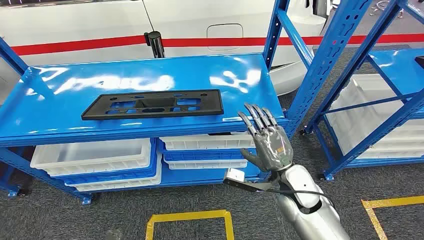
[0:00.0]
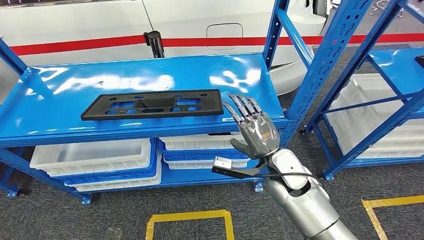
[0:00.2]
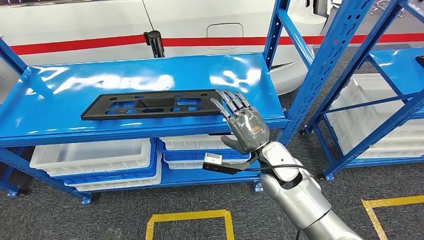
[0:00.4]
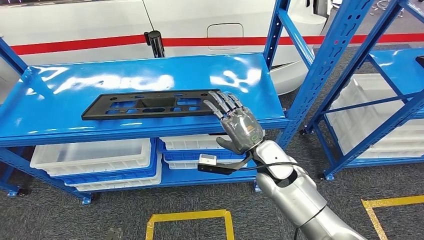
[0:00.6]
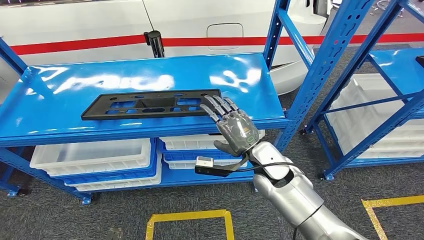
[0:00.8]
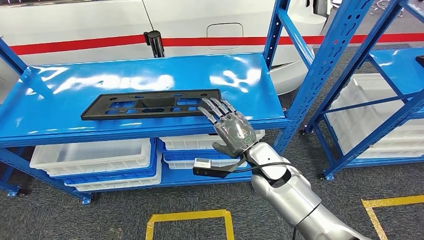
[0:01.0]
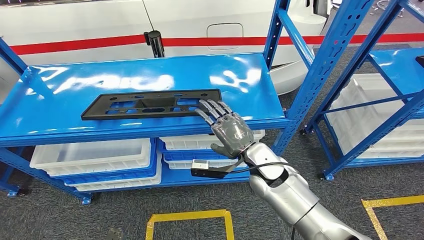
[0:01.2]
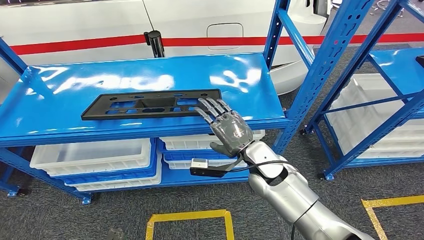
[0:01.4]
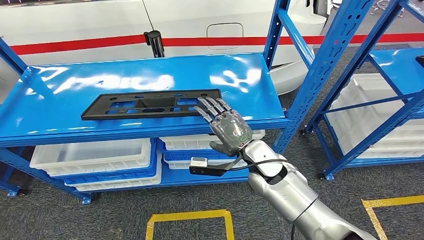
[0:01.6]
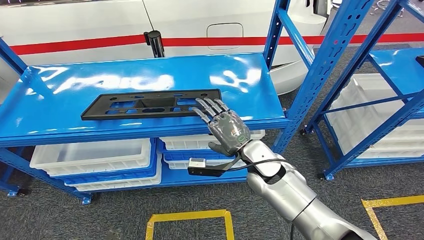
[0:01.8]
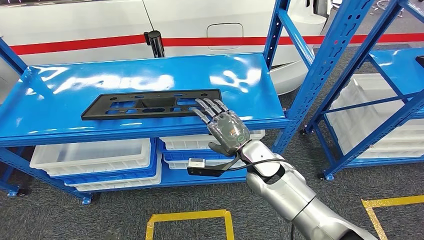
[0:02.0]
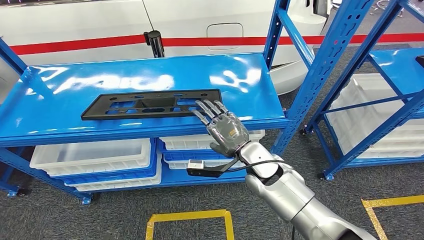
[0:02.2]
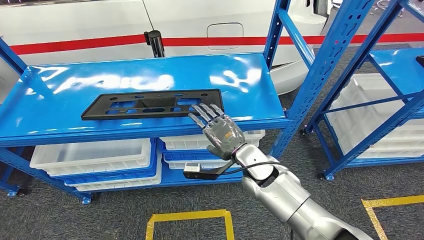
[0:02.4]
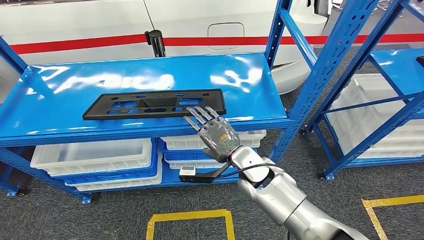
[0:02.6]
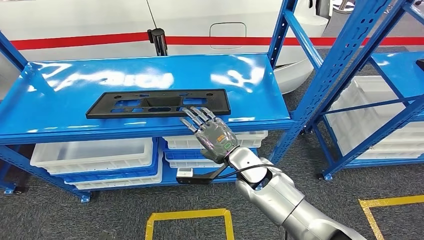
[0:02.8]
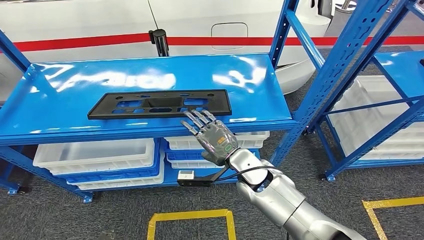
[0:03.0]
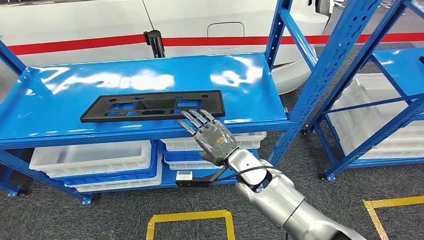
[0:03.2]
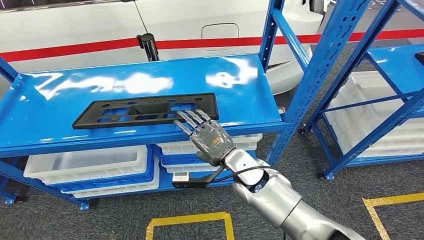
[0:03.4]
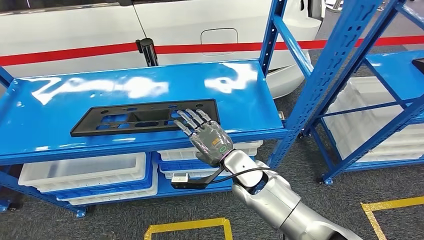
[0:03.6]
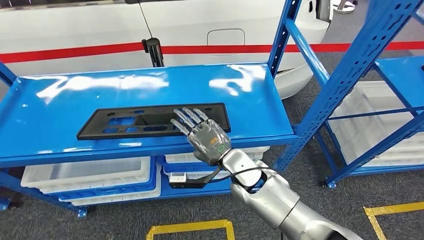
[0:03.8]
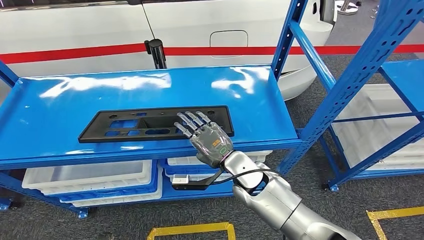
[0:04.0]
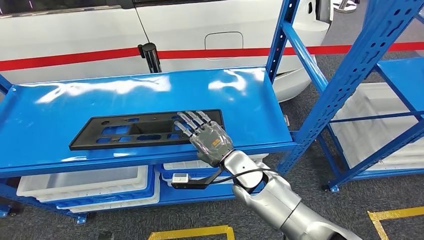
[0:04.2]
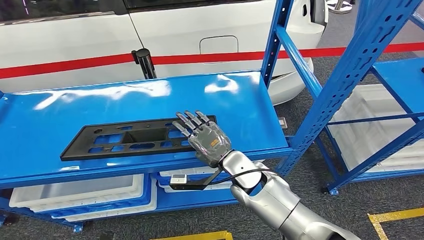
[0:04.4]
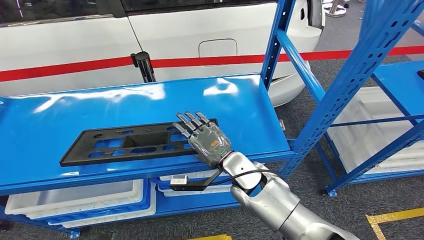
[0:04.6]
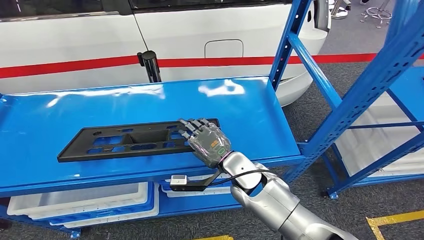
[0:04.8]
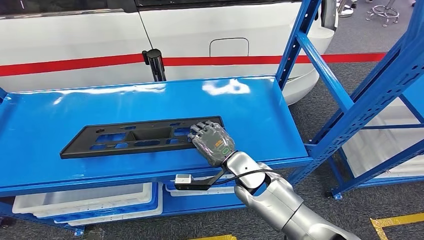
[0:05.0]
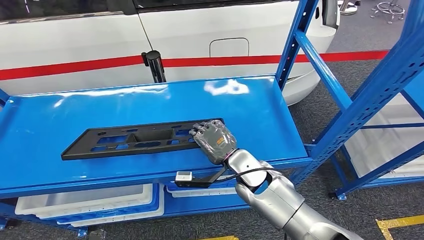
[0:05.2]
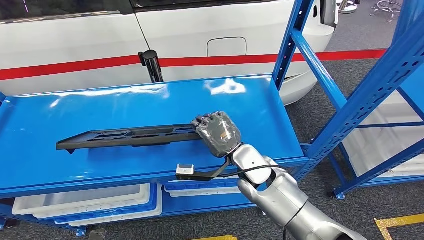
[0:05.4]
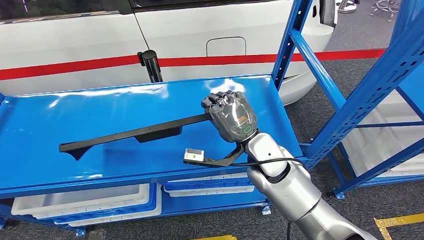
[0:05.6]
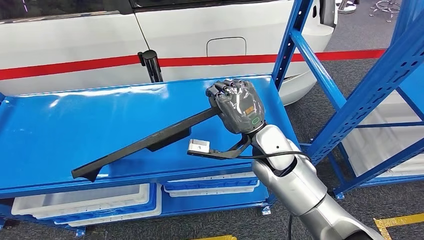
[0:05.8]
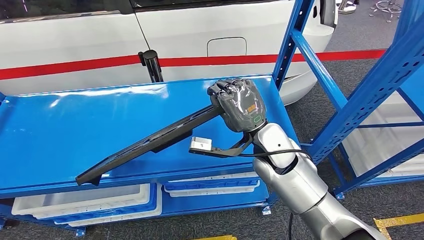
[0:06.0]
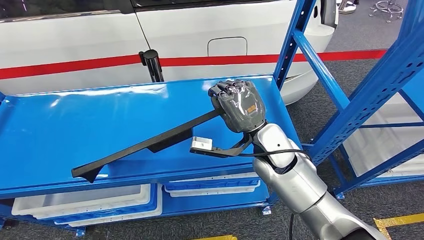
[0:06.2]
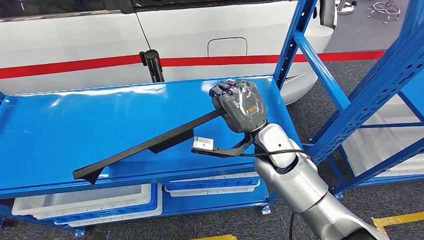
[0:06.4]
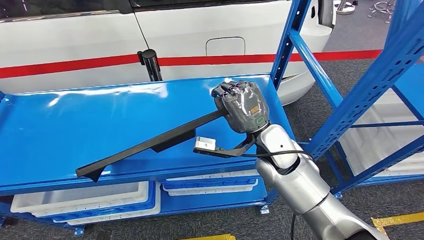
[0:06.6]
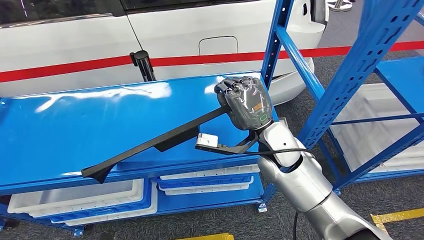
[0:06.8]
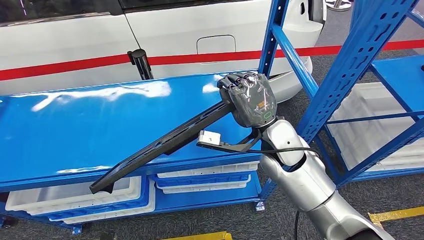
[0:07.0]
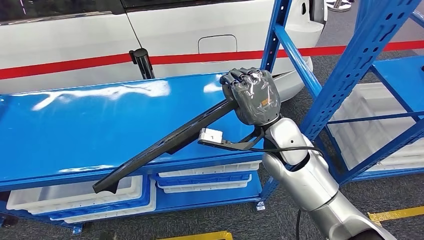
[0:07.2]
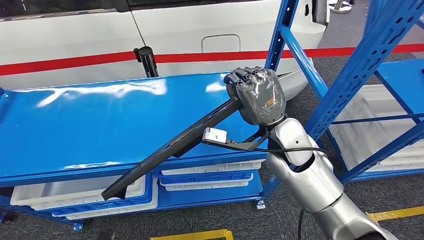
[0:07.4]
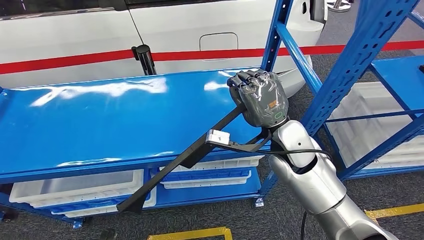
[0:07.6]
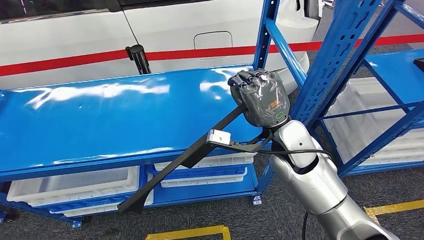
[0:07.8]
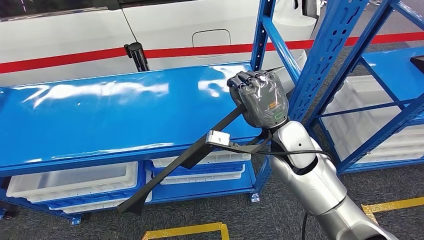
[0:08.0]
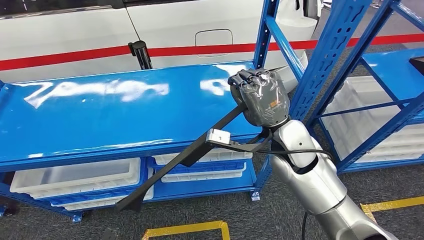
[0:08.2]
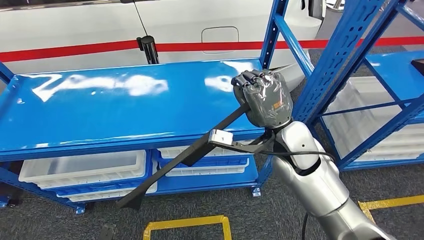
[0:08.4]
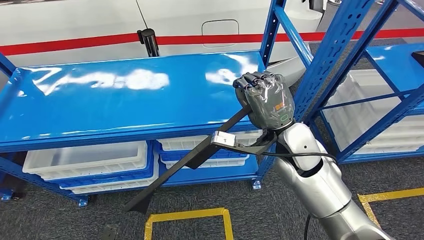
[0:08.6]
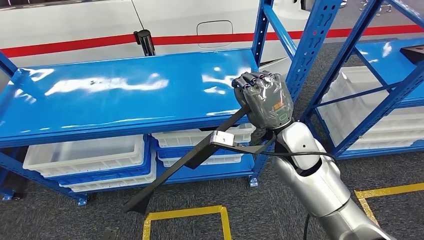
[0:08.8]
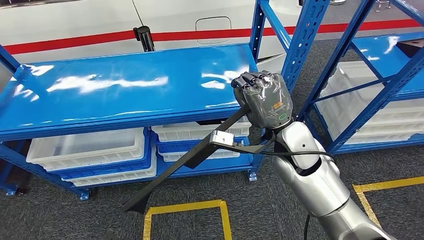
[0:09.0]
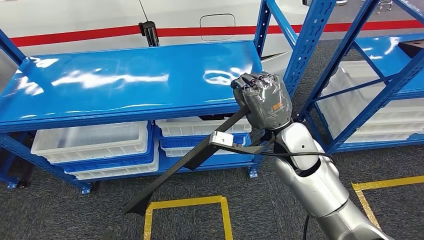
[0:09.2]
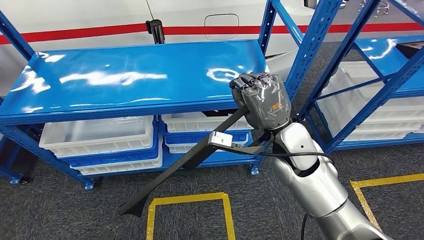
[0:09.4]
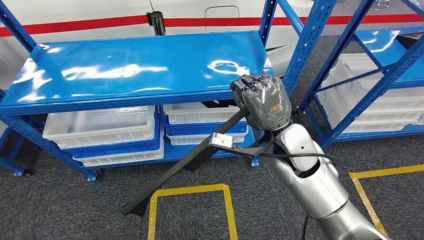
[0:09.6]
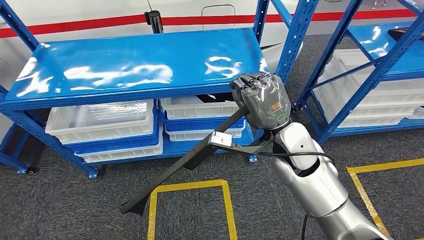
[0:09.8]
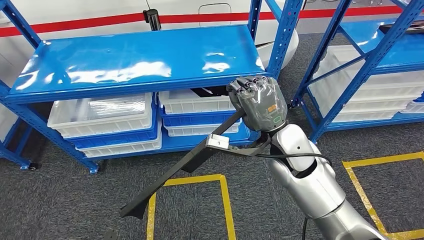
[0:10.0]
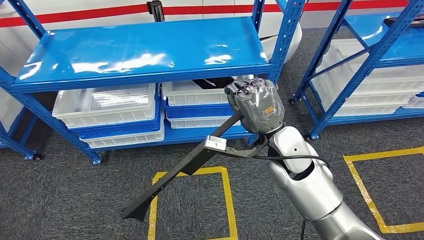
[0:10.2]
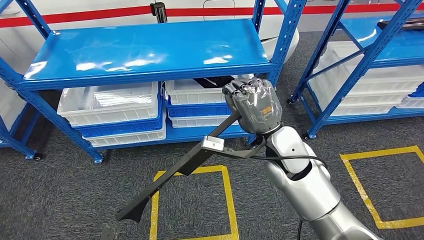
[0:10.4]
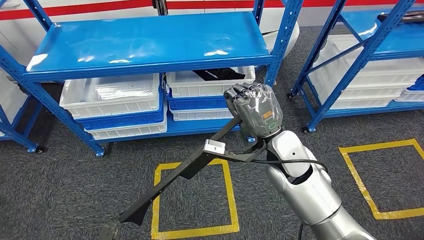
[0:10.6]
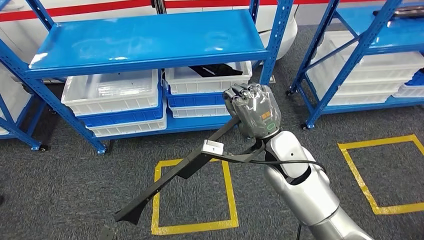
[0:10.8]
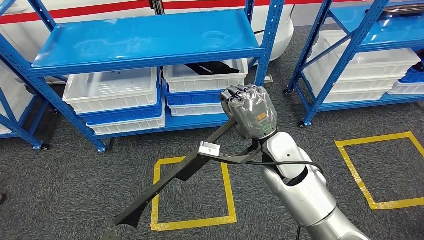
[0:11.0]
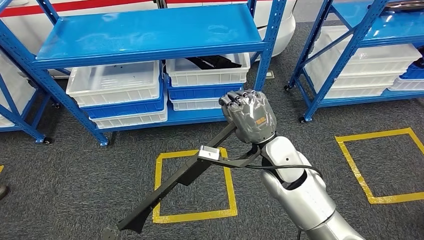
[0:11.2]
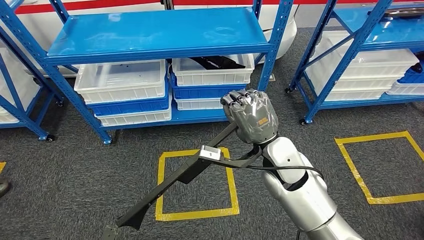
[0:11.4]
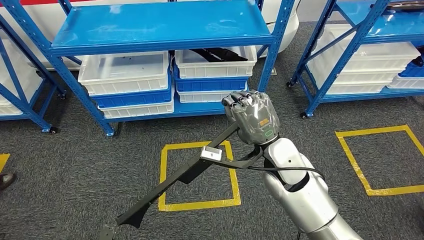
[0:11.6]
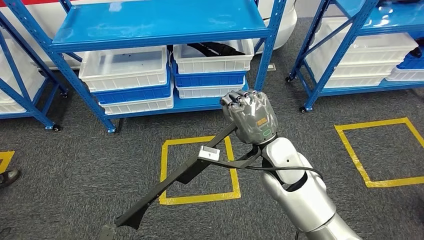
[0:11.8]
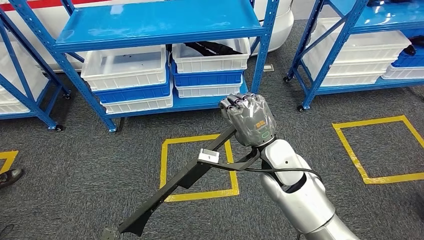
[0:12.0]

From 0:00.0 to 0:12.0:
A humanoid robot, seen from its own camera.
Step, from 0:00.0 to 0:06.6: Pick up the large material from the shelf.

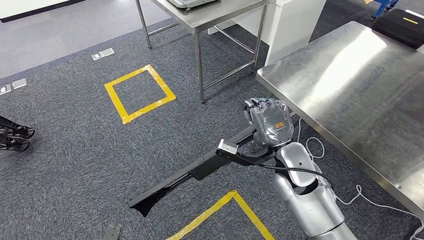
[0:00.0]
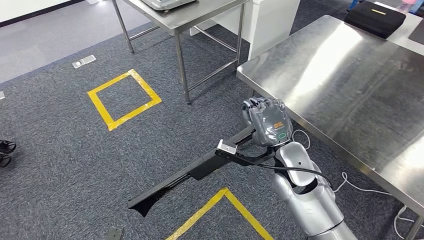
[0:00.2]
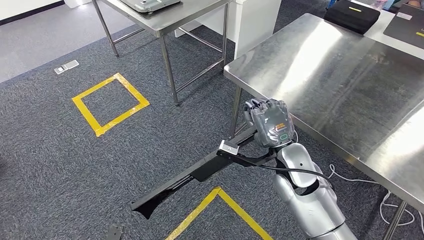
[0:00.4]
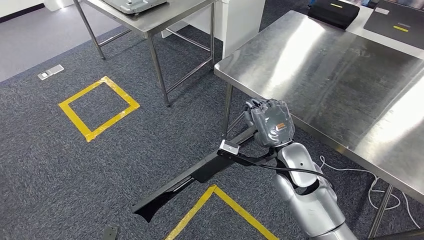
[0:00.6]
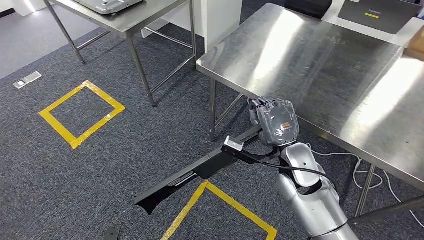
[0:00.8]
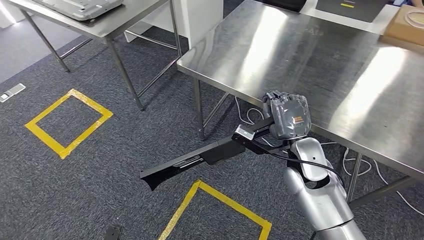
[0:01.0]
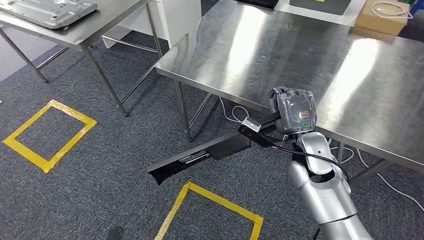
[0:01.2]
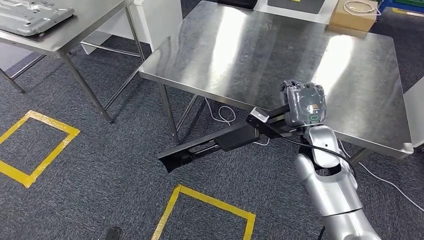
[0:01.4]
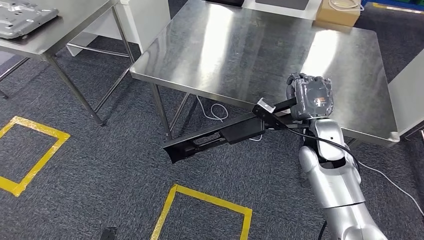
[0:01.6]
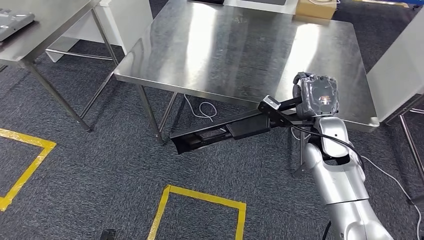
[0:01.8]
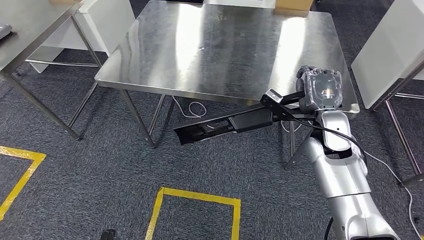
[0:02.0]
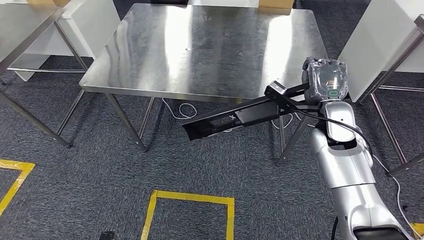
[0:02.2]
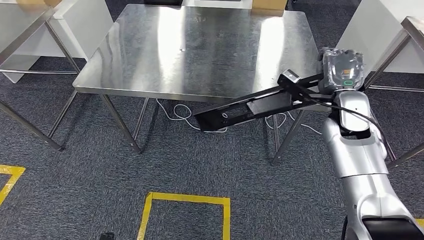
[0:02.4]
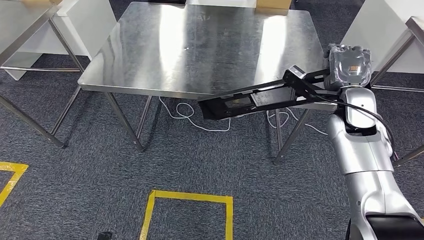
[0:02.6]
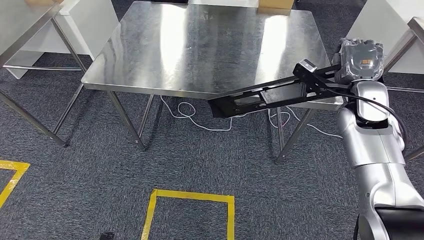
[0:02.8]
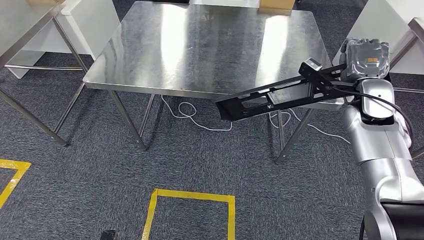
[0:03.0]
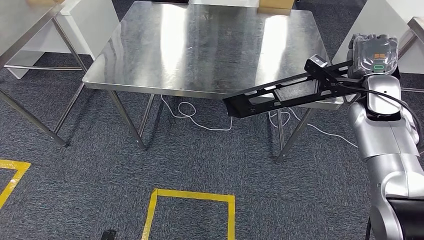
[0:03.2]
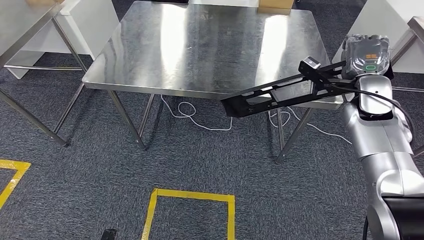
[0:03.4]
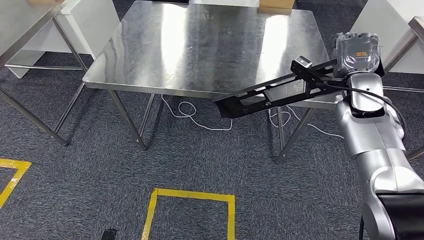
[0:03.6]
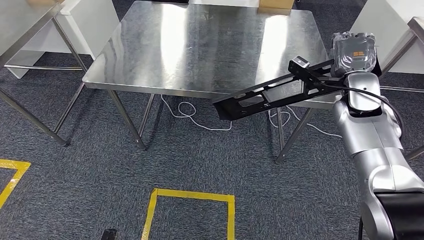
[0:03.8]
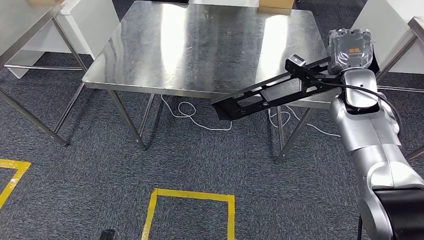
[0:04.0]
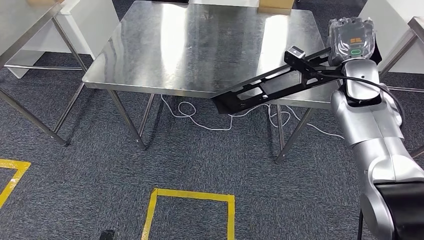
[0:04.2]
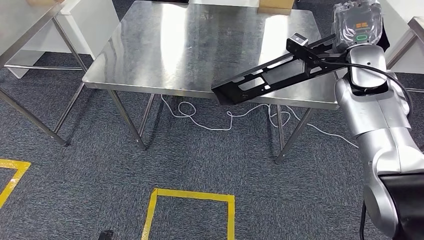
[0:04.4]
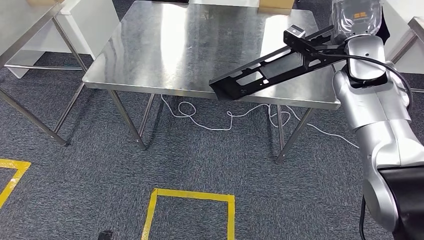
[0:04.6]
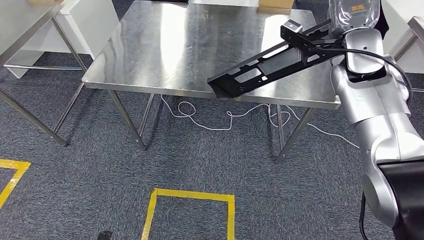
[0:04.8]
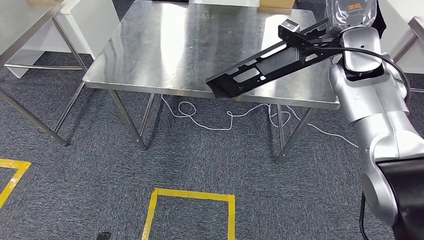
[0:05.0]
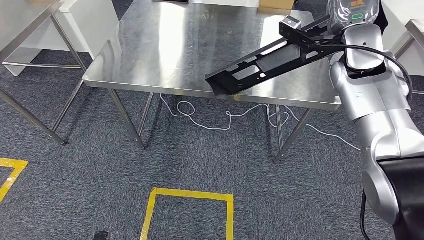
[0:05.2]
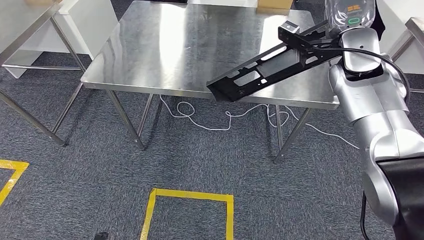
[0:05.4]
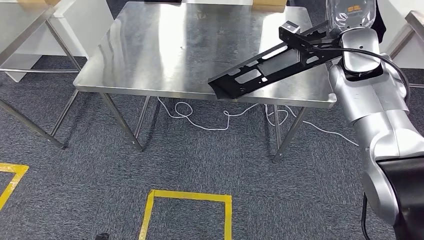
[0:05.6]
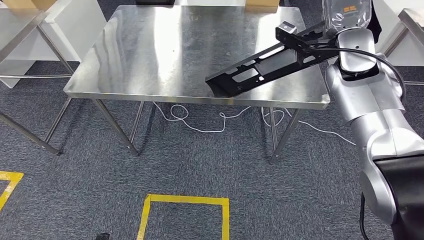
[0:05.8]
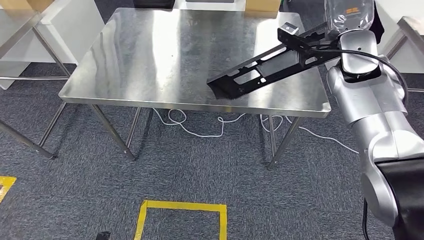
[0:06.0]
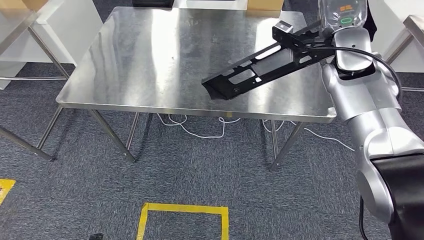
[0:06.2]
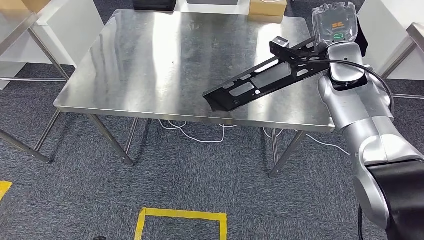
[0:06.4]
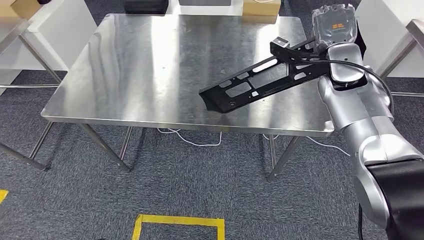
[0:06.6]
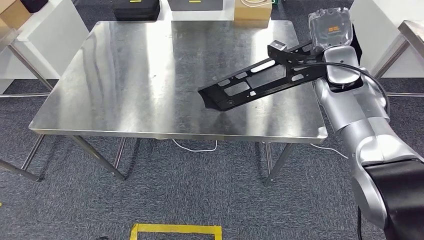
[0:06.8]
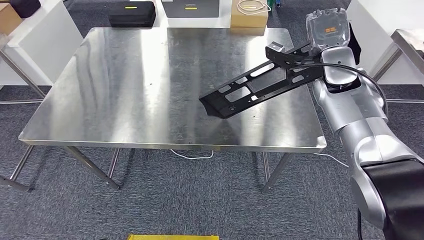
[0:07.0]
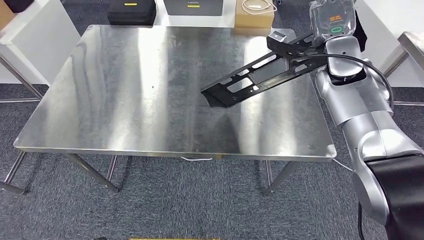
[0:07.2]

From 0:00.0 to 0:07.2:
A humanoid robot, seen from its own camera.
From 0:02.8 to 0:04.4: The right hand travels upward by roughly 5 cm.
